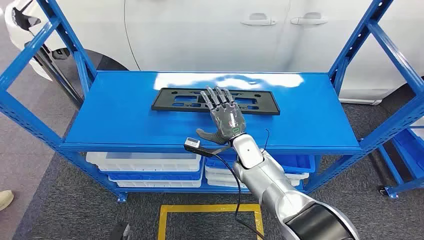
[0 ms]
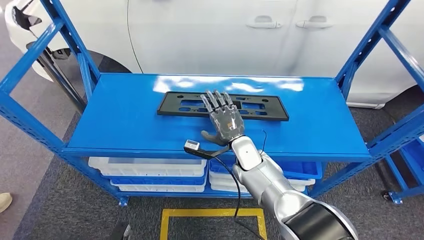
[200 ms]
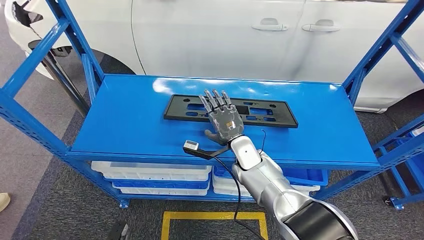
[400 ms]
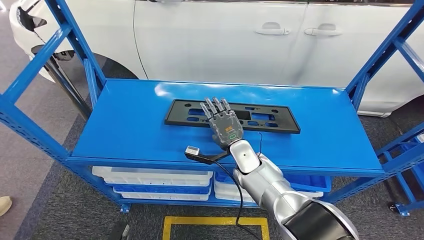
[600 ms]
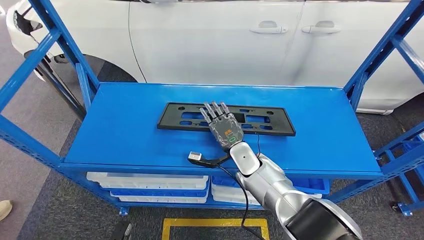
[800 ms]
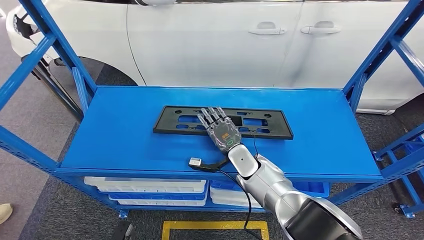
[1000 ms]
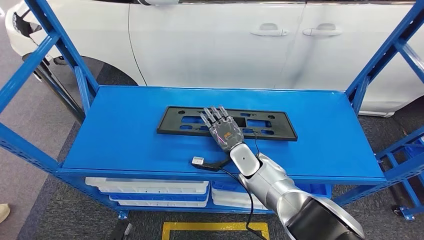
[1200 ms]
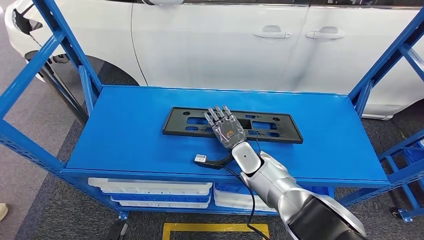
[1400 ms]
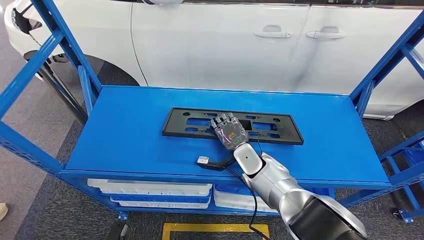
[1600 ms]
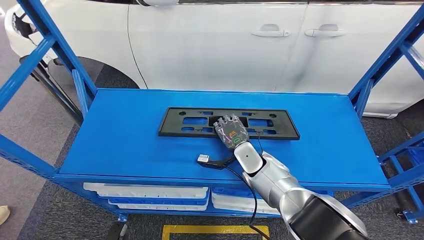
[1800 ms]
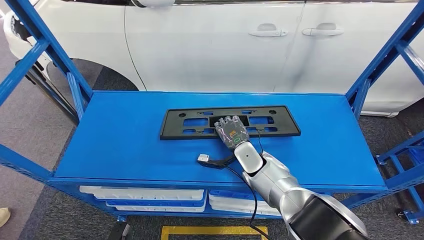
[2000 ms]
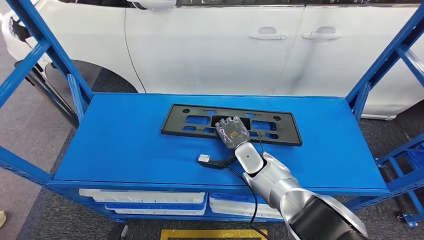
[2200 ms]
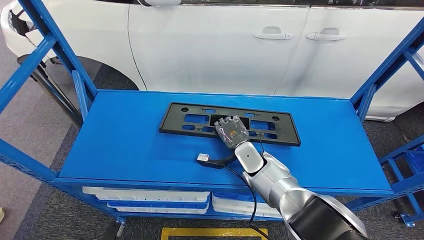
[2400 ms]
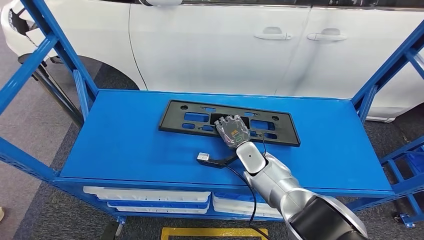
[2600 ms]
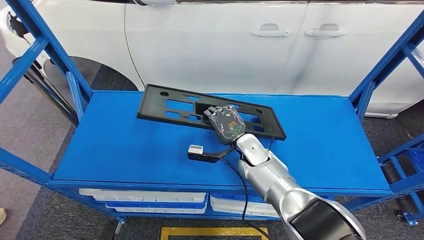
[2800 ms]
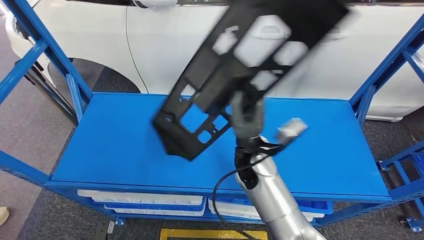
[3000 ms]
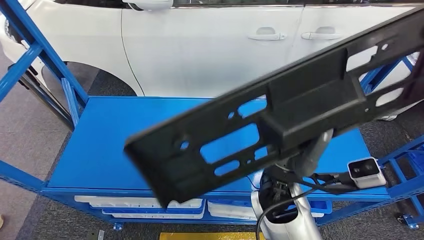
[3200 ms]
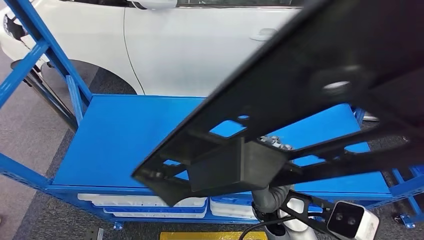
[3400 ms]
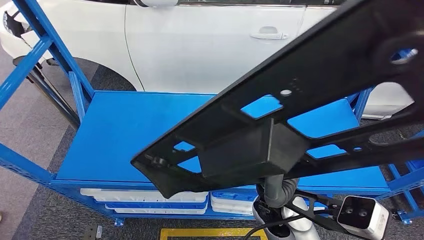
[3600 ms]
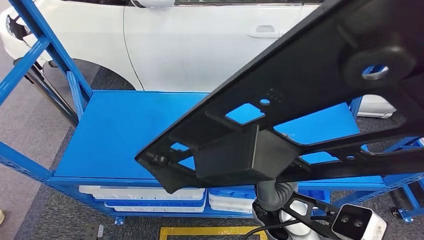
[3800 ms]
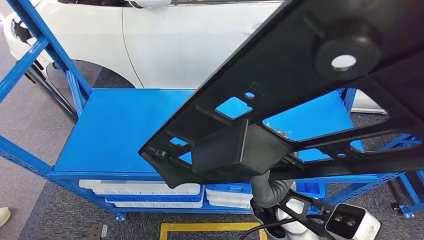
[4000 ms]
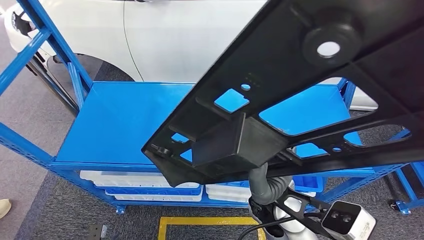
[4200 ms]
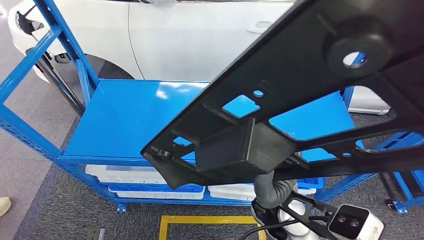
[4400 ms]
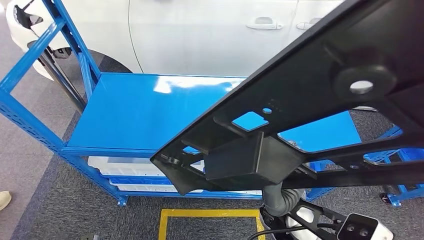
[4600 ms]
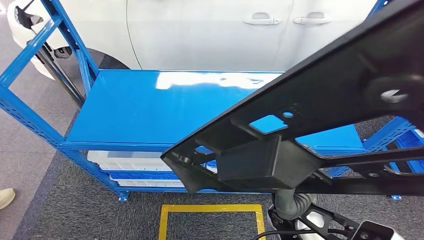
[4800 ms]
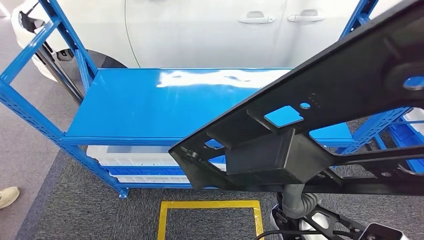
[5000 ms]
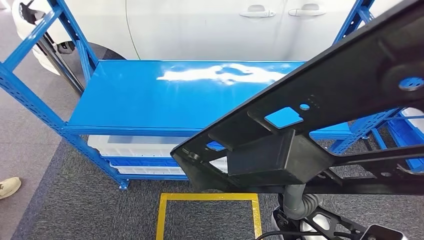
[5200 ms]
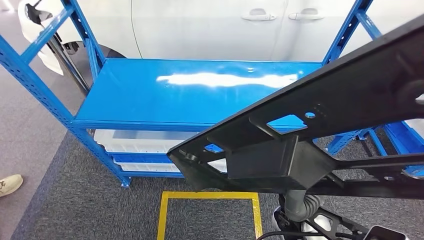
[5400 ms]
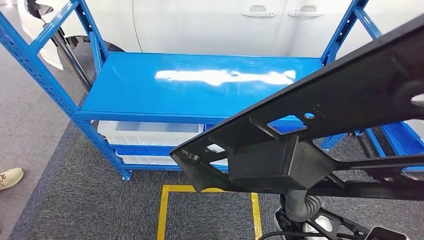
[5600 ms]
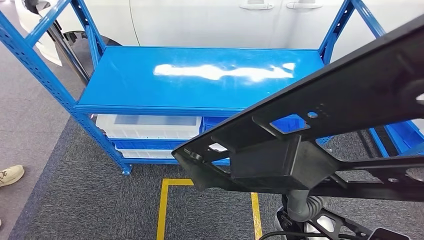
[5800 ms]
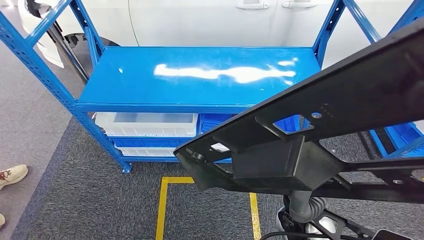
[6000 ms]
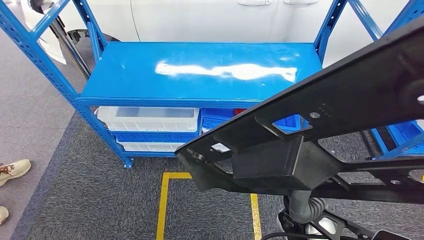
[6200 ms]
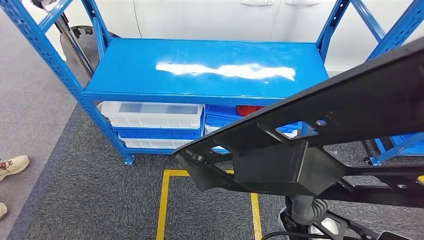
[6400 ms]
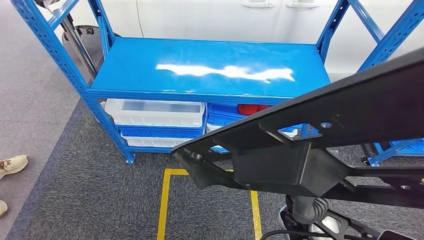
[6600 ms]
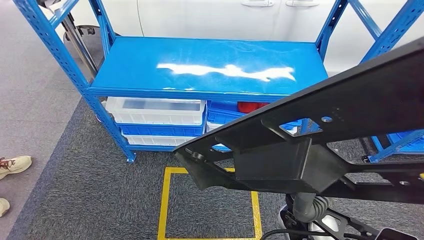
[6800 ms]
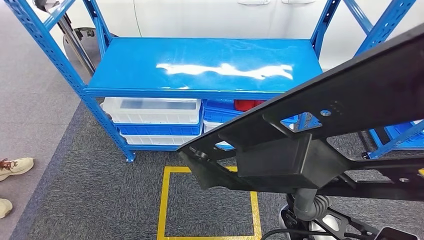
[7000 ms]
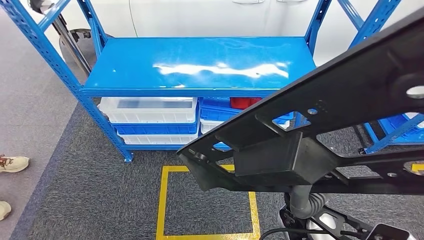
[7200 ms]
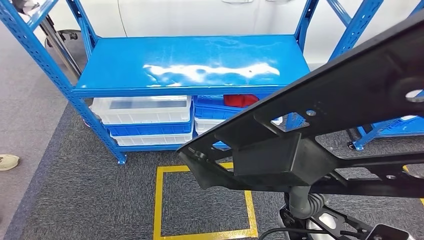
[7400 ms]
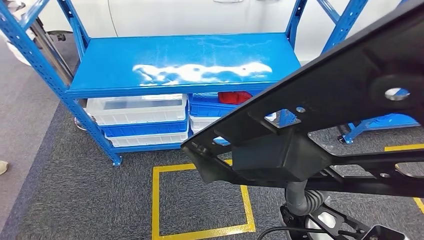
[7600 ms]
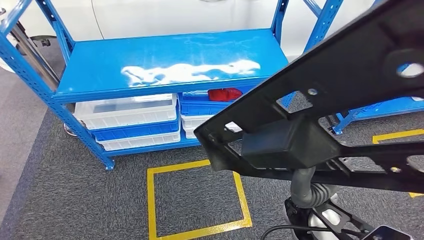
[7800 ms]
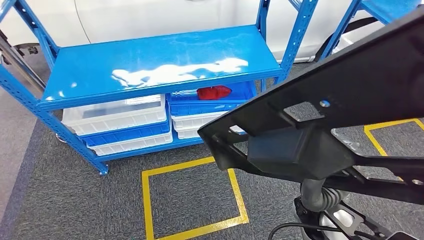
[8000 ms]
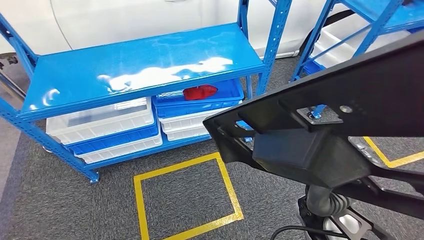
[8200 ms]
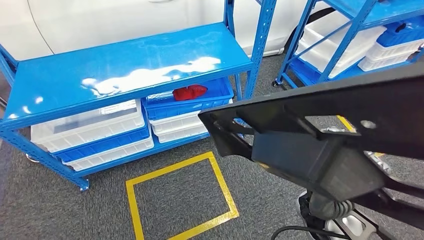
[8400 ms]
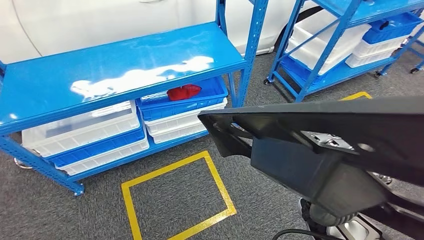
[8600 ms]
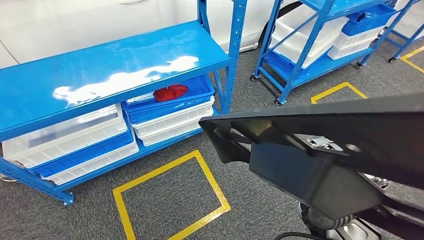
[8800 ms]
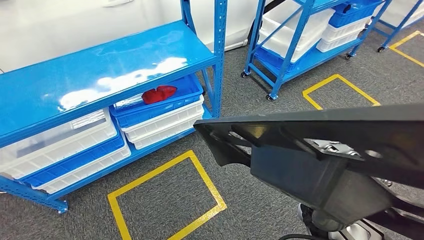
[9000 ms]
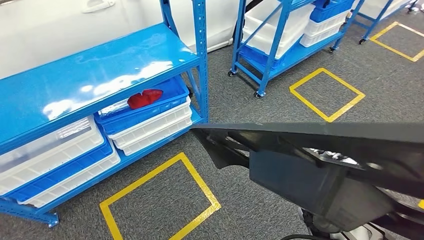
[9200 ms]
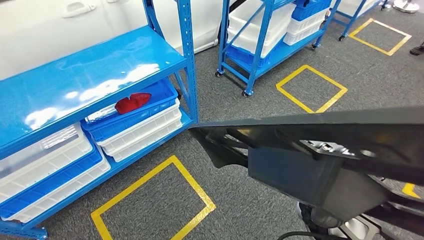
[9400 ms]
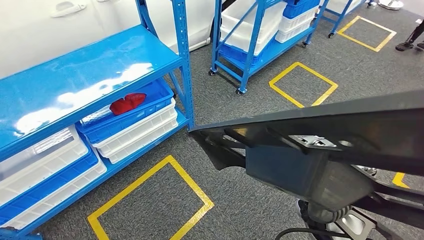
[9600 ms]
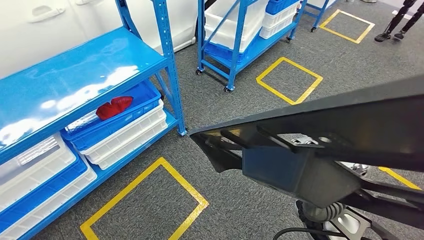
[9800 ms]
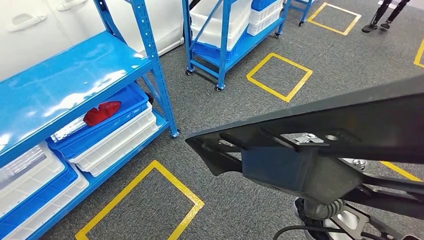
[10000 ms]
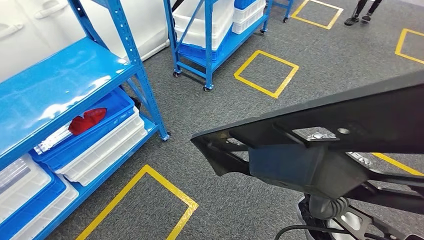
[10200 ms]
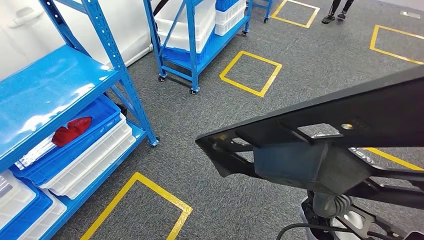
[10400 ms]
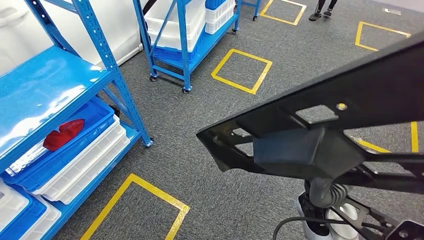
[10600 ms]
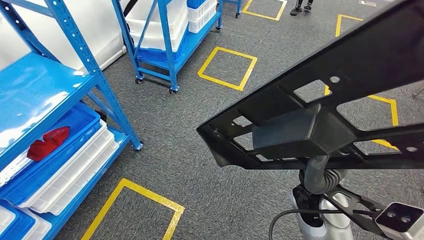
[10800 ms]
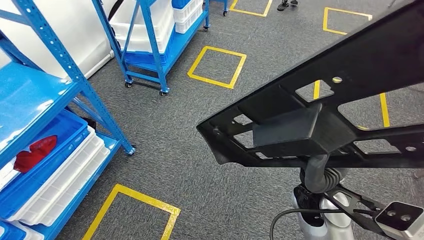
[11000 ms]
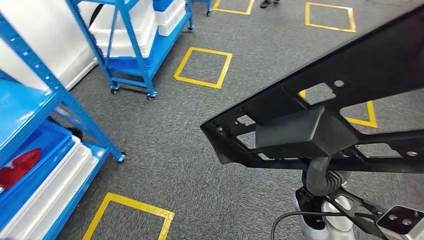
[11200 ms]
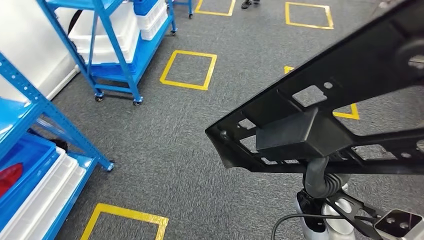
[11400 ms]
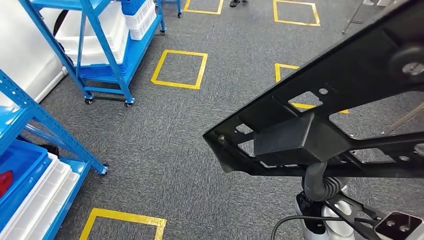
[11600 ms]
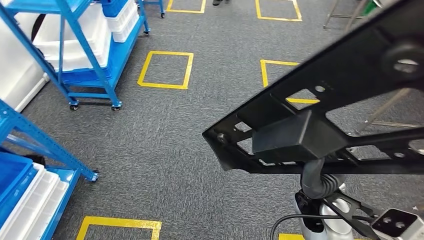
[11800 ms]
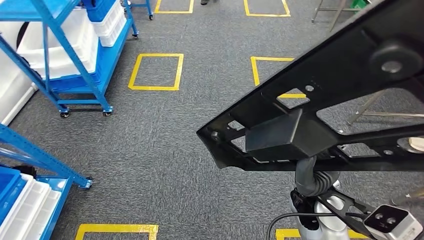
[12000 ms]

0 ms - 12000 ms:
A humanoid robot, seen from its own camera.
Step, 0 ms - 3600 ms: Pick up the large material from the shelf.

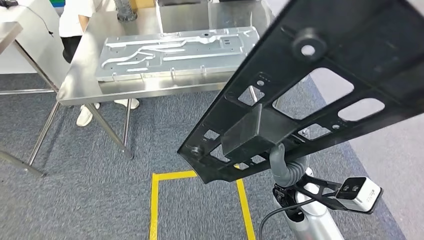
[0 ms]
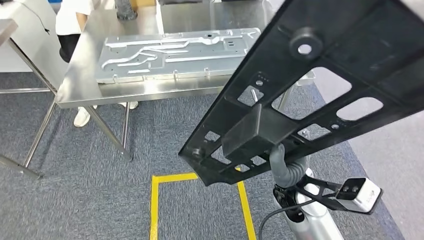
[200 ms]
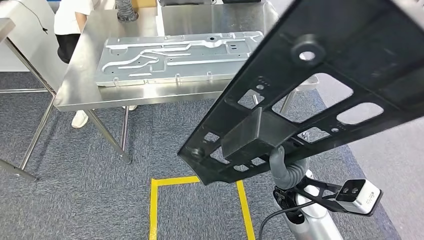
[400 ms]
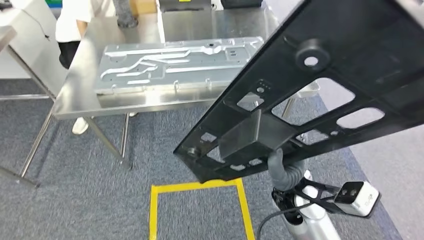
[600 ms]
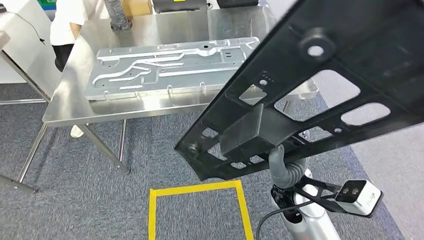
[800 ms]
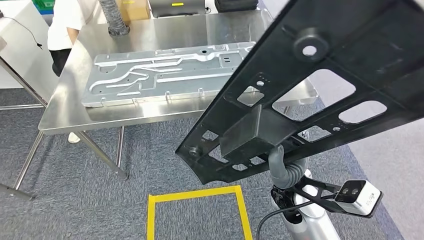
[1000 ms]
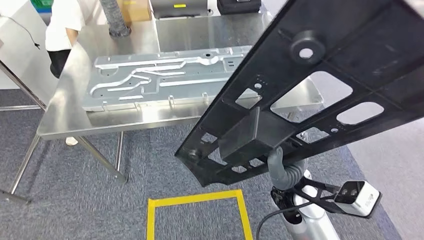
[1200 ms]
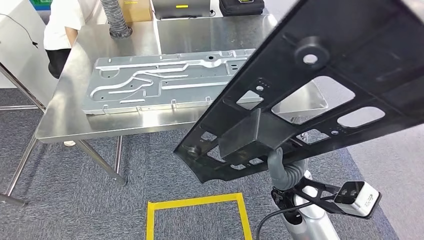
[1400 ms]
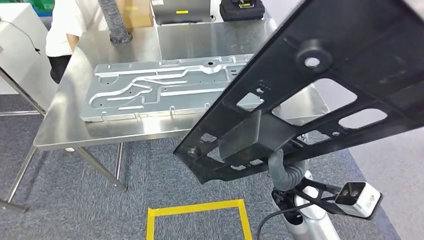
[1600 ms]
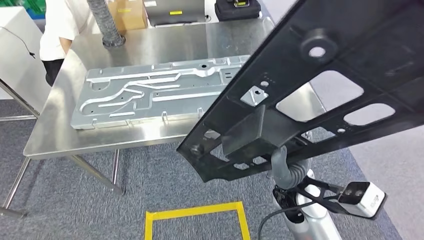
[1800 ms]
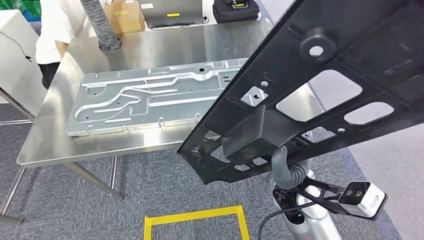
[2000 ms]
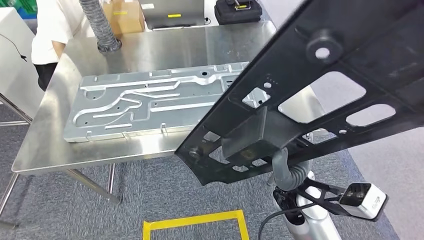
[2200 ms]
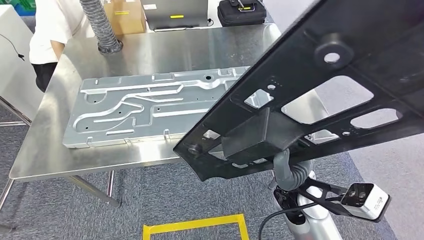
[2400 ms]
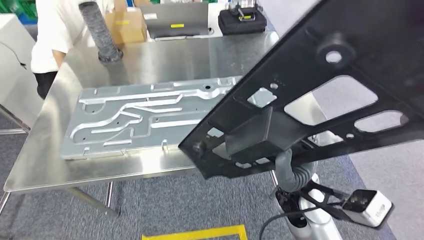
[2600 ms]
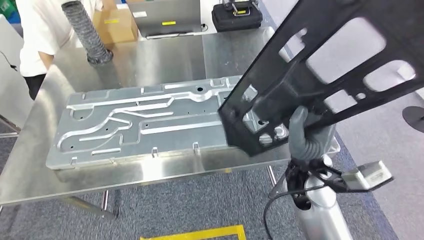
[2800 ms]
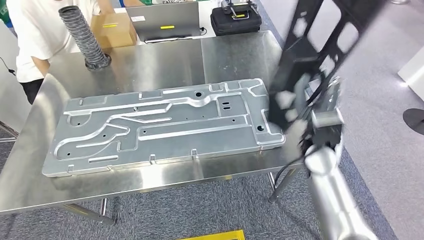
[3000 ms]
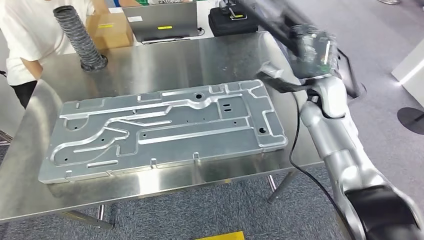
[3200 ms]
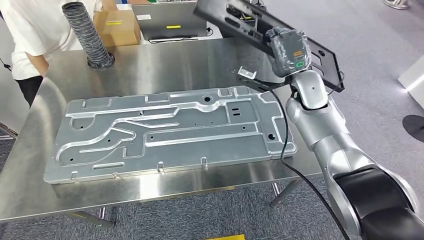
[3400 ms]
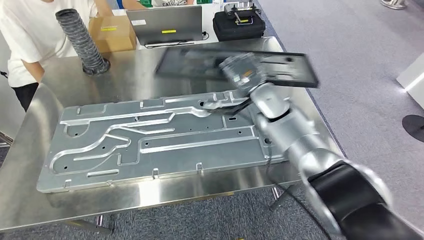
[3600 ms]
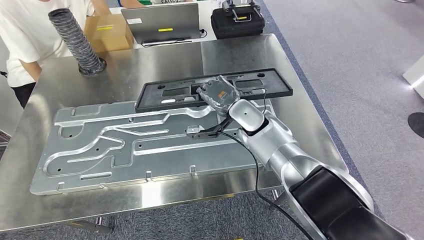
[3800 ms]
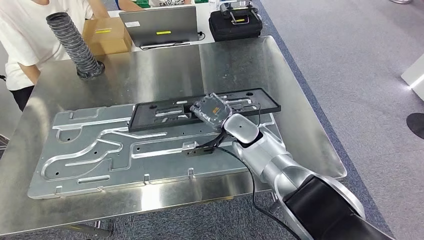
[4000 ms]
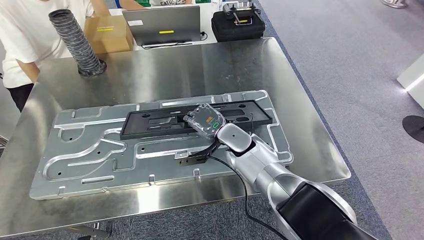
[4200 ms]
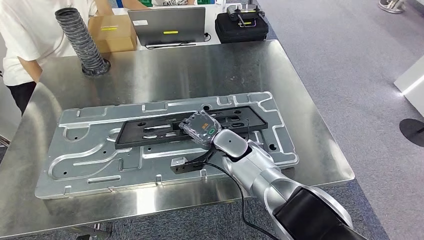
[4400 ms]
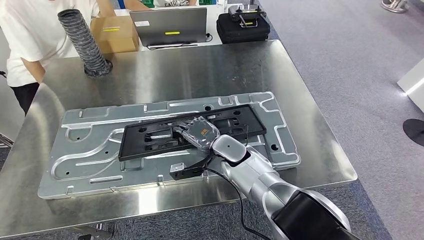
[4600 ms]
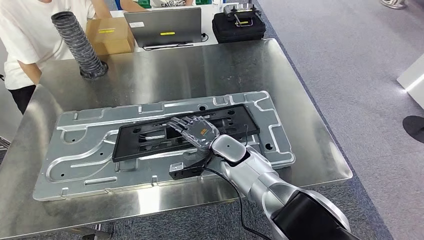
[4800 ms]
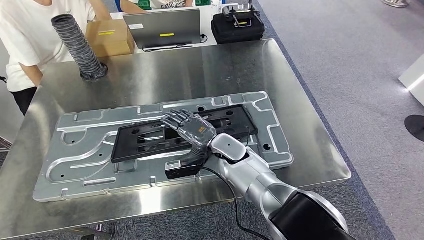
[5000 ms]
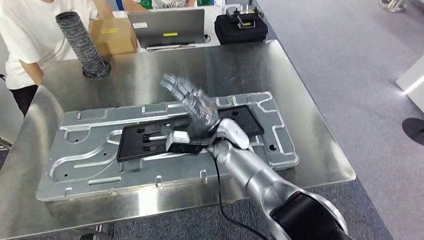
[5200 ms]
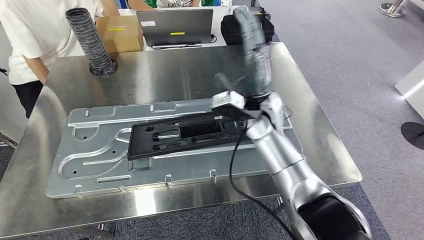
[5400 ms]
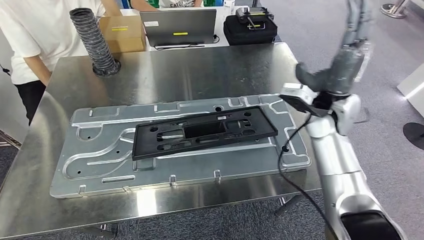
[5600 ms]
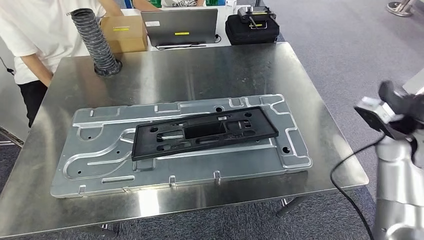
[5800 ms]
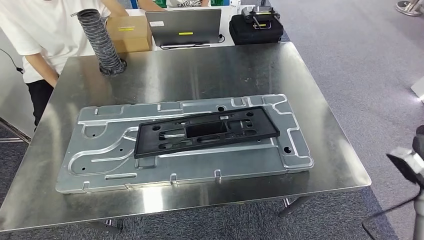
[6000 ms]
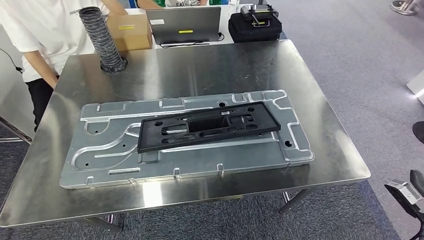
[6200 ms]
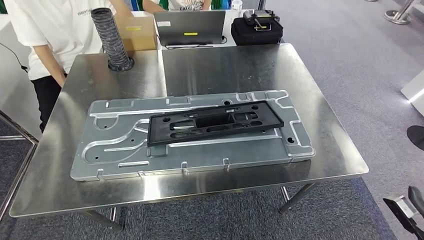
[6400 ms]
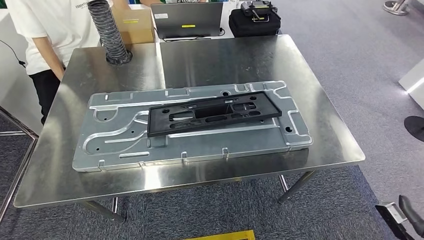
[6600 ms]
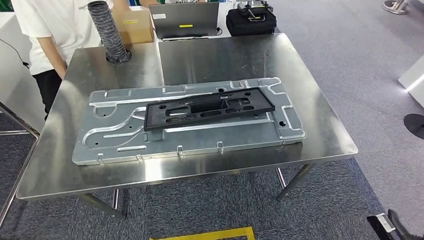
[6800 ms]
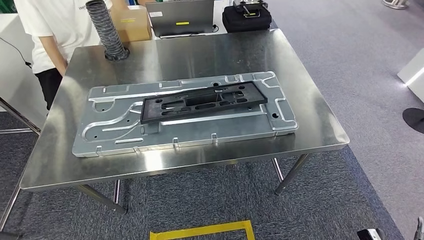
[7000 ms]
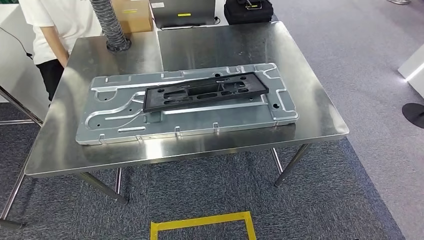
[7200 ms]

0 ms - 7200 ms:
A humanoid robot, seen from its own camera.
Step, 2200 ms - 6800 ms: Insert the large material into the corresponding slot on the workbench.
